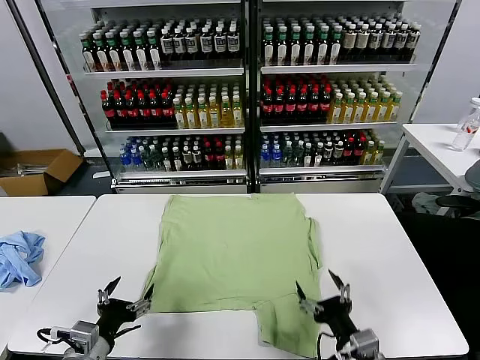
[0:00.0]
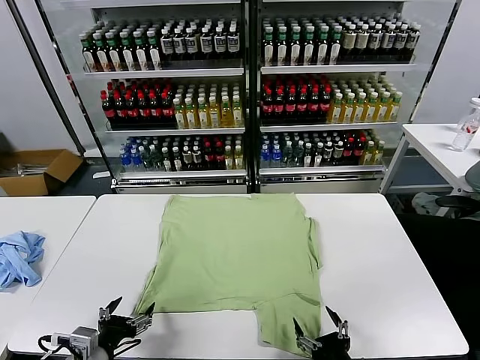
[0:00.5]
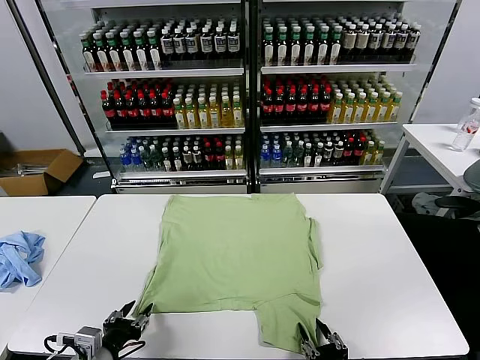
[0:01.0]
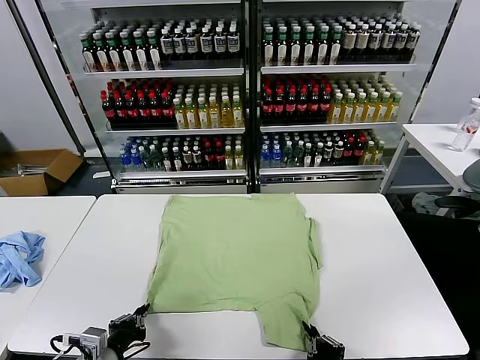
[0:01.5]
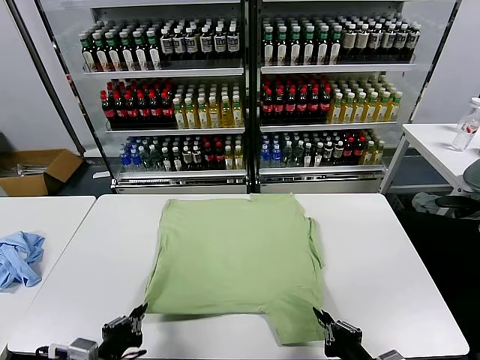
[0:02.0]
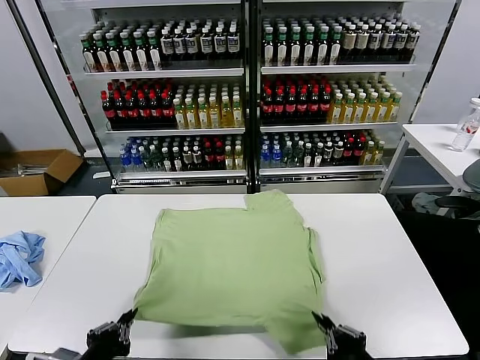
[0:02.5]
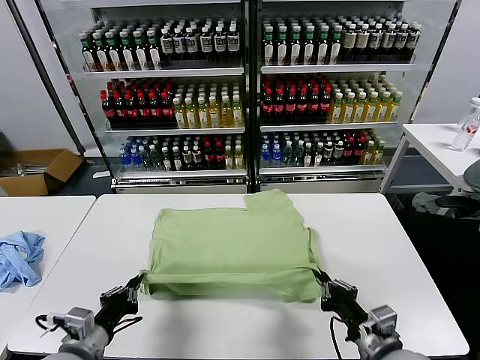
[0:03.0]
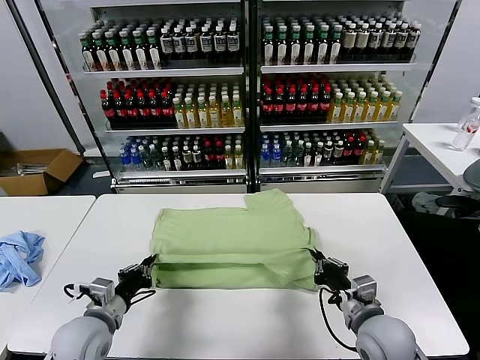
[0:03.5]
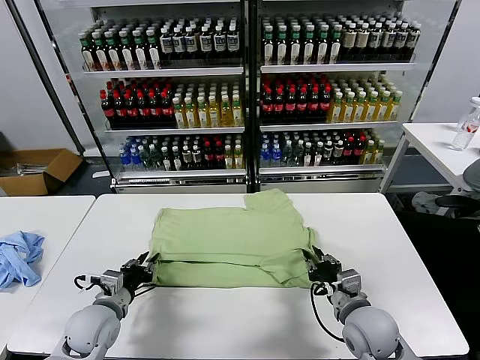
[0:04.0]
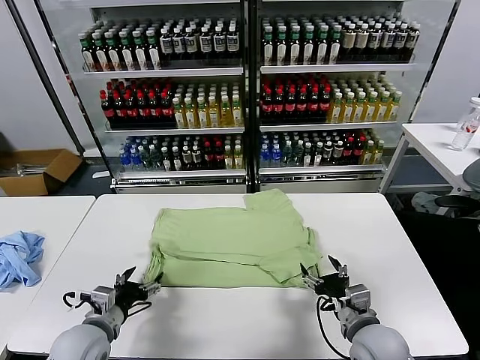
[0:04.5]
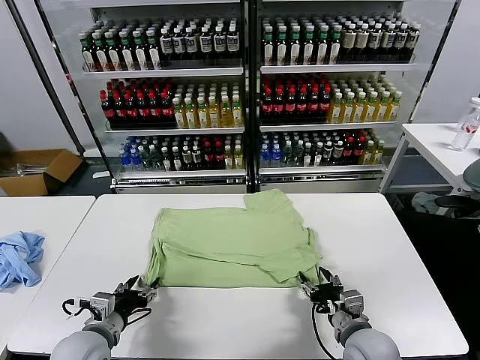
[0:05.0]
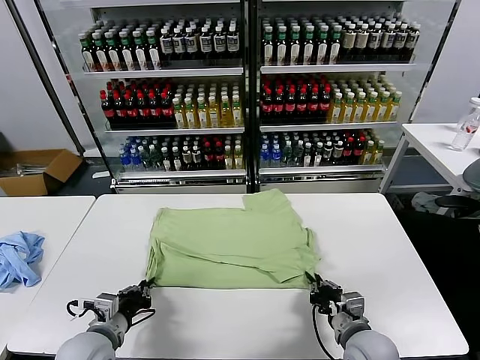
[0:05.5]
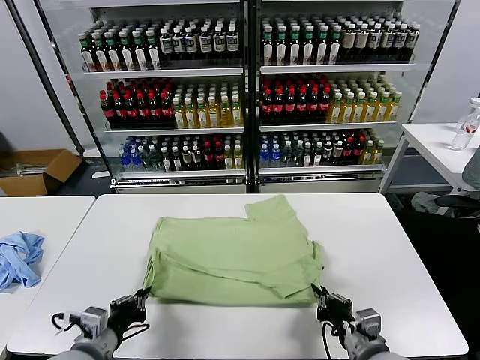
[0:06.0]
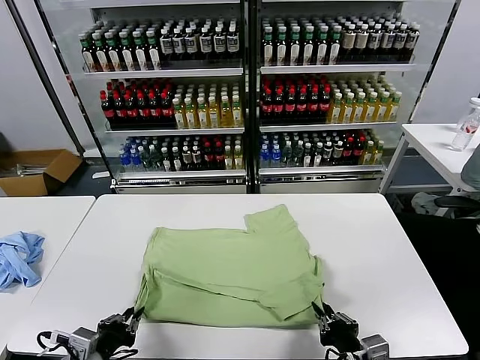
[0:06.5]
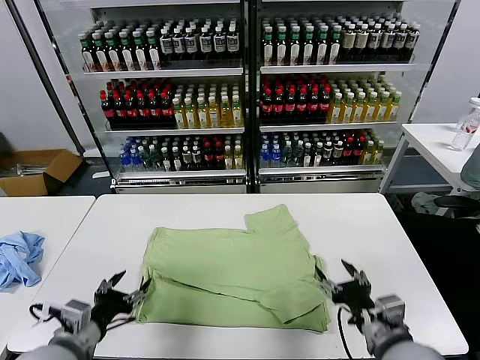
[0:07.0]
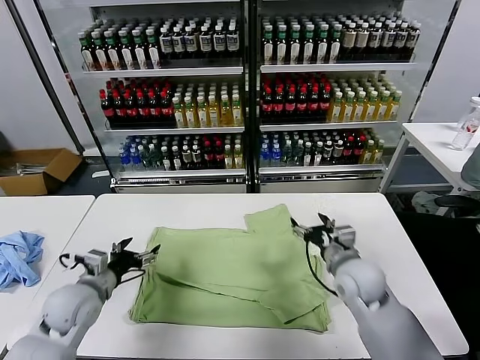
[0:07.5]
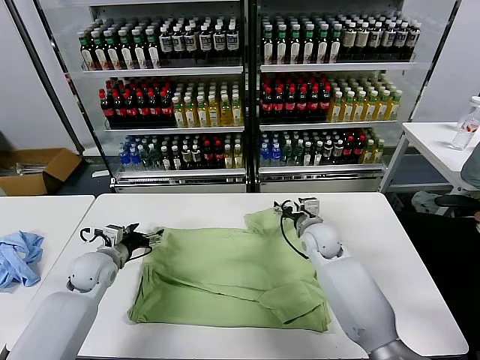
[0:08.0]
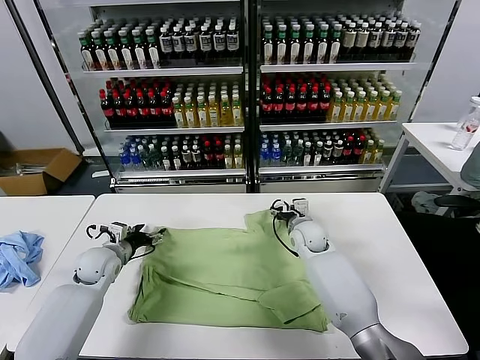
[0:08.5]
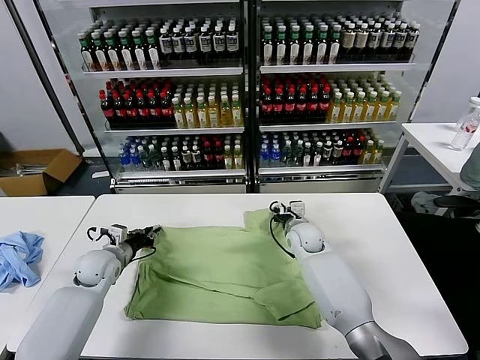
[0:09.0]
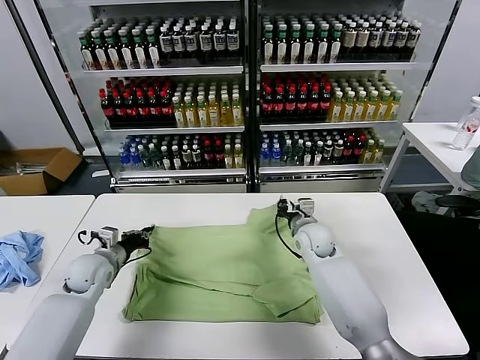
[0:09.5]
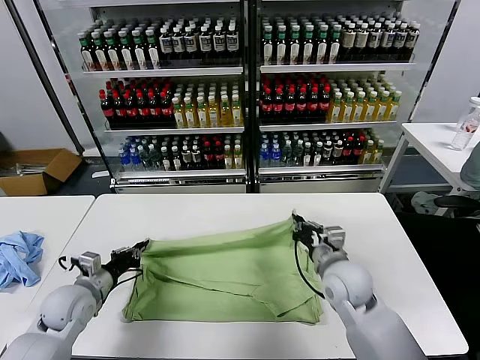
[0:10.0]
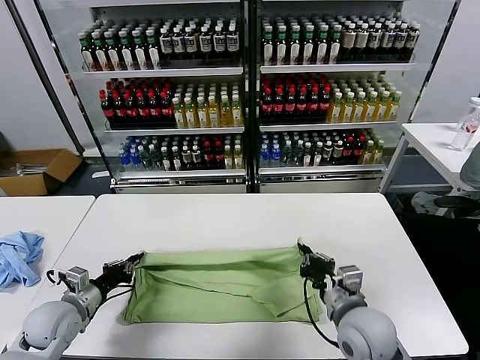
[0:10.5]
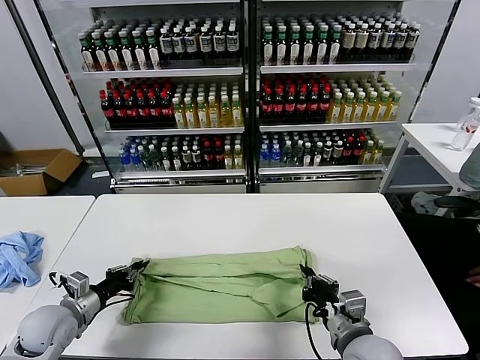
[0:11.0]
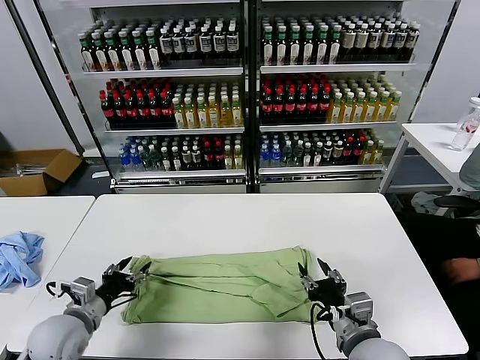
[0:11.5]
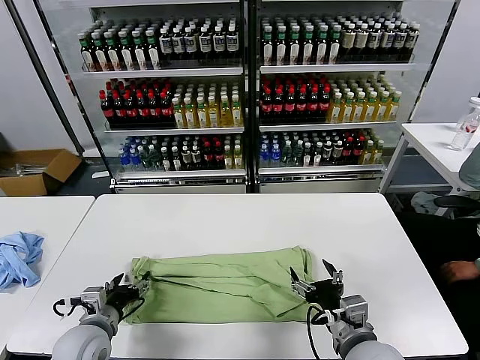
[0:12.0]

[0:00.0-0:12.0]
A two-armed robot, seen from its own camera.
Task of the whole recording: fold and organize the clothes.
Step, 0:00.0 to 0:01.0: use both grippers simultaneously to clamp the lower edge of the clothing fabric.
Step, 0:01.5 to 0:04.0: use both grippers to drag the lower edge of the fabric forward and fold it over the upper edge.
Step, 0:04.5 to 0:06.5: Drag the clothes downward with both gripper.
Step, 0:07.0 to 0:09.0: use both grippers simultaneously to clamp the upper edge of the clothing fabric.
Step, 0:09.5 to 0:11.0: use both grippers to drag the upper edge of the fabric backward and fold it over the lower edge.
0:02.0 to 0:04.0: Both grippers travel together forward, some 15 cm. The right gripper opens its fingers. The left gripper opens.
0:04.0 to 0:06.0: The two grippers go roughly 10 cm backward. The left gripper closes up. Meanwhile the right gripper closes.
0:06.0 to 0:08.0: The grippers both shift forward by approximately 30 cm. The right gripper opens up; the left gripper opens.
0:08.0 to 0:10.0: The left gripper travels backward by about 10 cm, and closes its fingers. Meanwhile the right gripper moves backward, approximately 15 cm, and closes its fingers.
0:10.0 to 0:12.0: The right gripper moves backward, about 15 cm, and opens up, while the left gripper heads backward and to the right, covering some 10 cm, and opens its fingers.

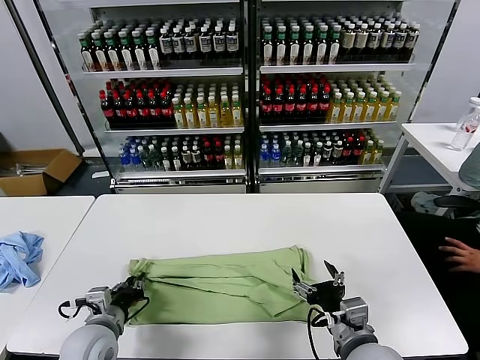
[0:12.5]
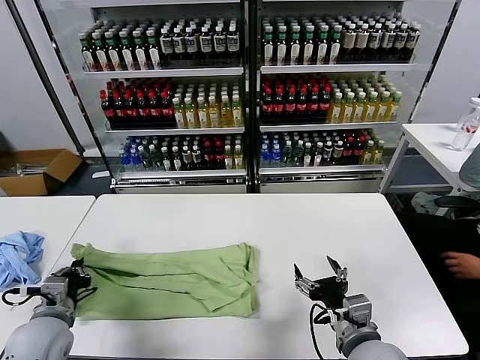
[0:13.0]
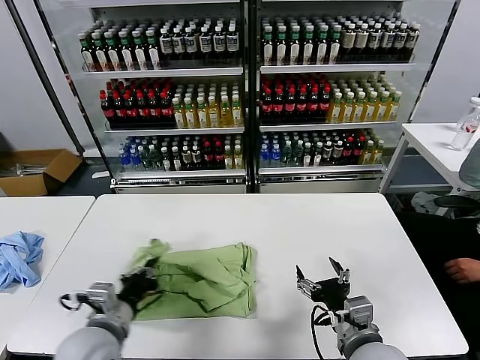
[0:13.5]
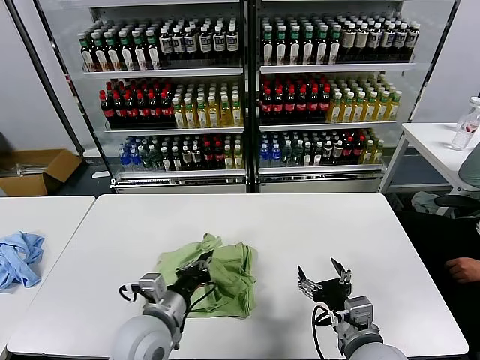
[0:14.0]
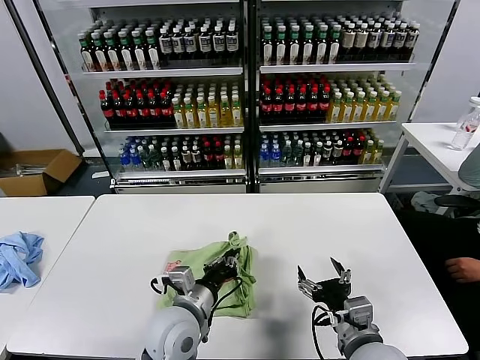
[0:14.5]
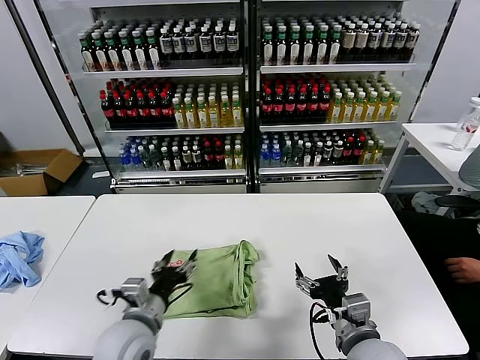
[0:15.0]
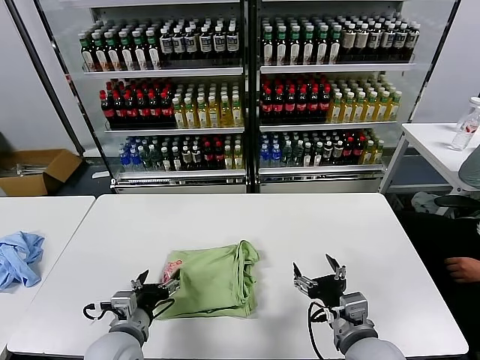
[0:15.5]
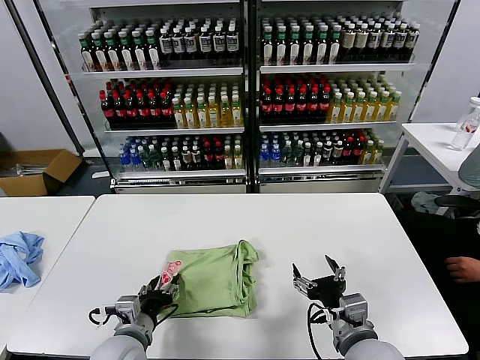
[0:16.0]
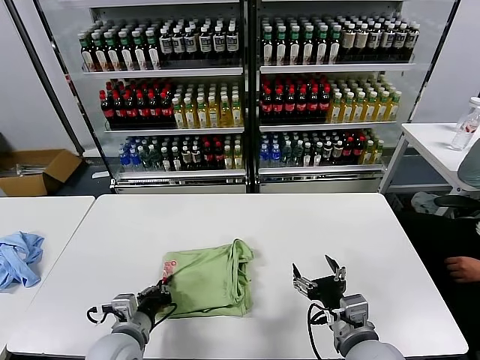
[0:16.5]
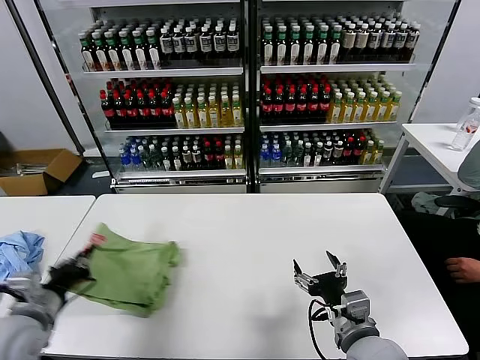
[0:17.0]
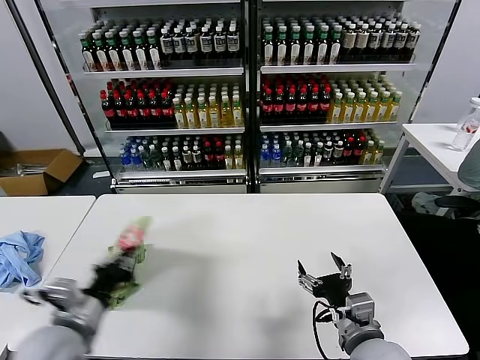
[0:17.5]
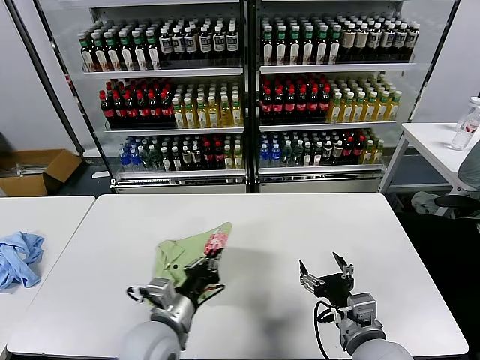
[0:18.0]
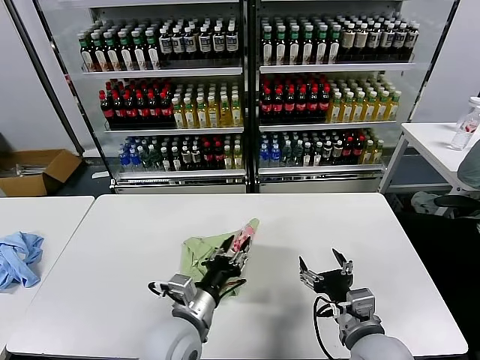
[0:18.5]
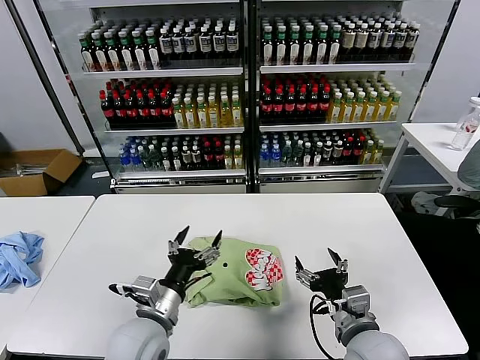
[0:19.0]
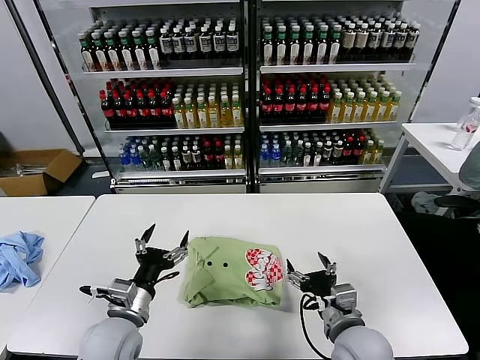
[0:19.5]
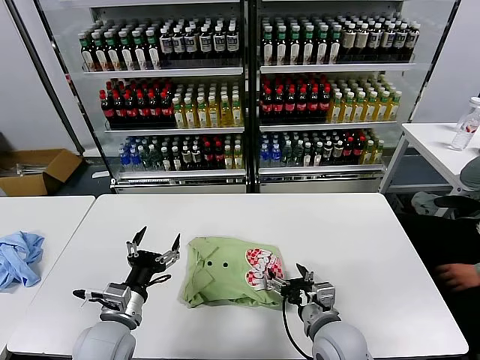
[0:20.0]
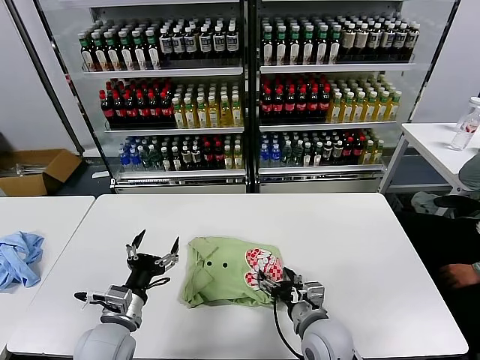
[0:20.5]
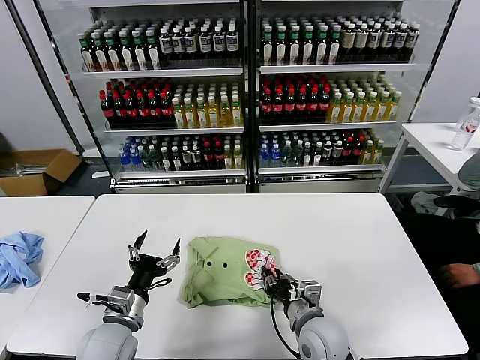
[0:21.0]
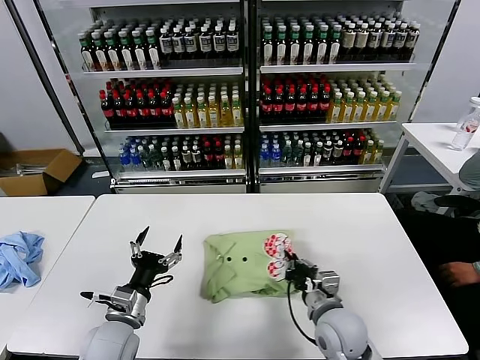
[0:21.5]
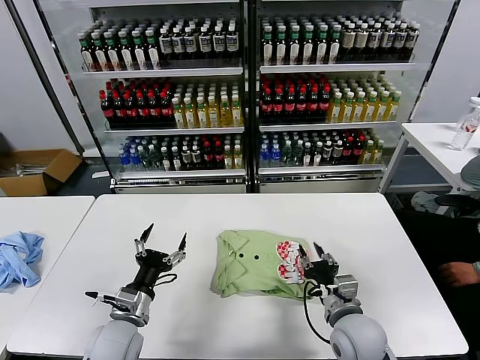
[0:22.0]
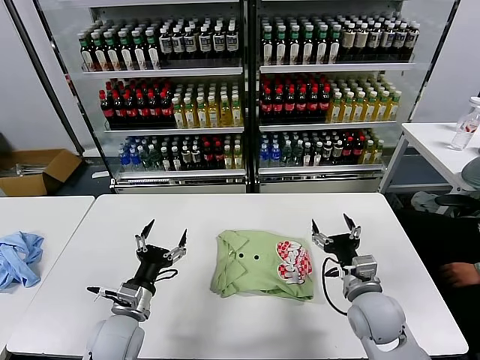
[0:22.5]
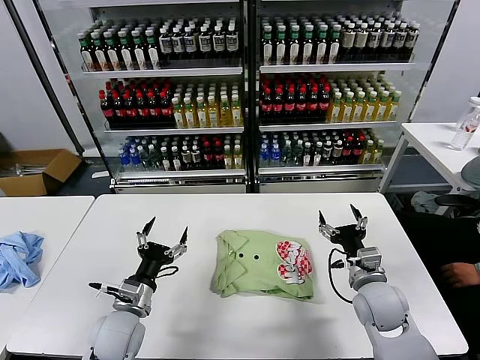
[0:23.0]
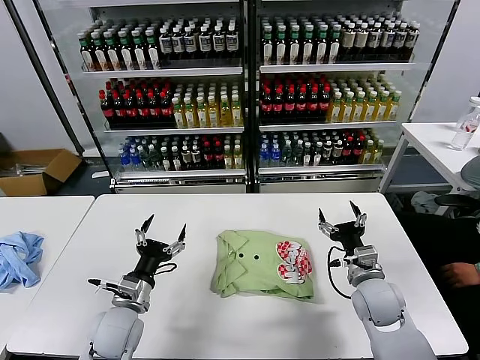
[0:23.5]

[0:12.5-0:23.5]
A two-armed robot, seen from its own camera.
Task of the whole recording: fold and organize the clothes.
Step, 0:13.0 to 0:14.5: use the left gripper to drag the left edge of the fabric to the left and folds it over the right edge.
Step, 0:15.0 to 0:18.5: Flip the folded clothes over with left gripper.
Step, 0:19.0 to 0:21.5: Drag the clothes to the center of the table.
0:12.5 to 0:14.5: The left gripper goes roughly 15 cm to the right.
0:14.5 to 0:16.0: The left gripper goes about 10 cm to the left and downward, and opens up.
0:16.0 to 0:18.0: The left gripper goes about 5 cm upward, reaches approximately 15 cm to the left, then returns, and closes its fingers.
0:18.0 to 0:20.0: The left gripper moves to the left, some 10 cm, and opens, while the right gripper heads downward, covering approximately 5 cm.
0:20.0 to 0:21.5: The right gripper closes its fingers.
0:21.5 to 0:23.5: The right gripper goes some 10 cm to the right and forward, and opens its fingers.
